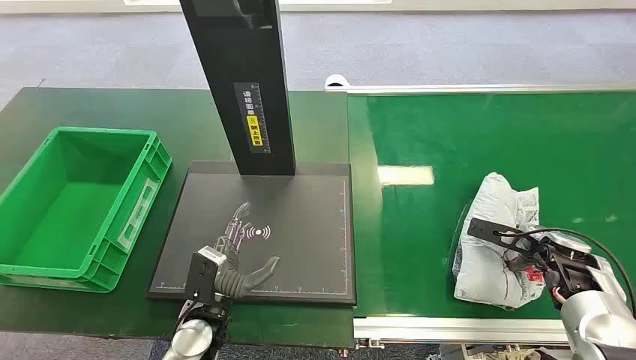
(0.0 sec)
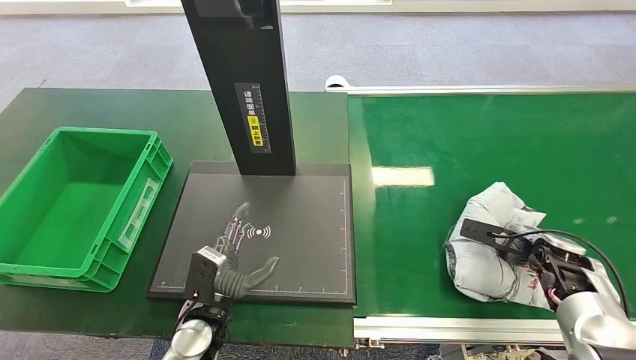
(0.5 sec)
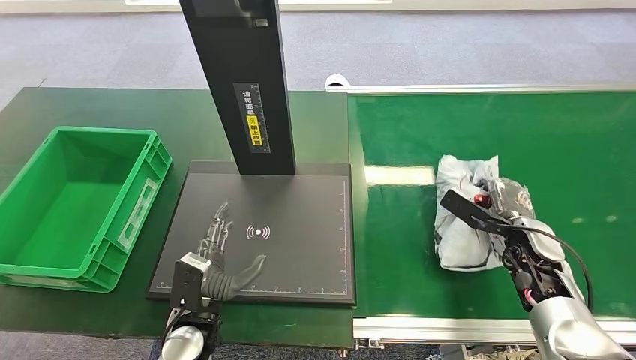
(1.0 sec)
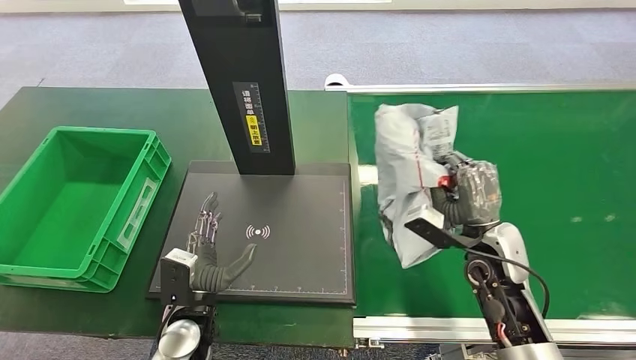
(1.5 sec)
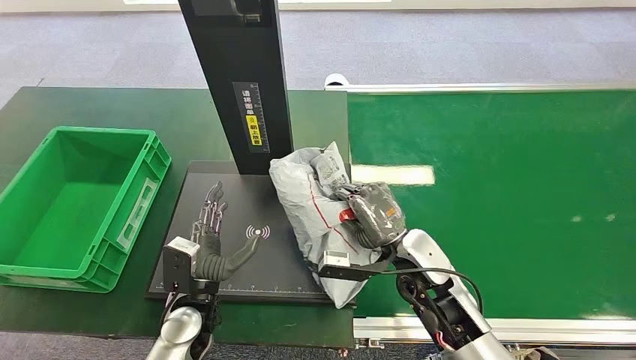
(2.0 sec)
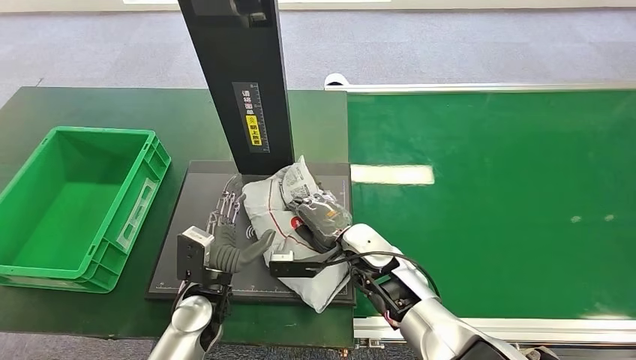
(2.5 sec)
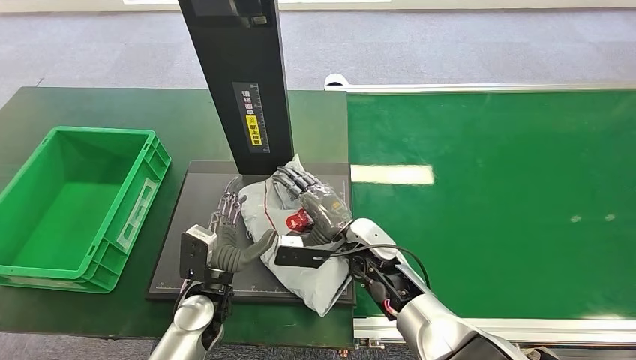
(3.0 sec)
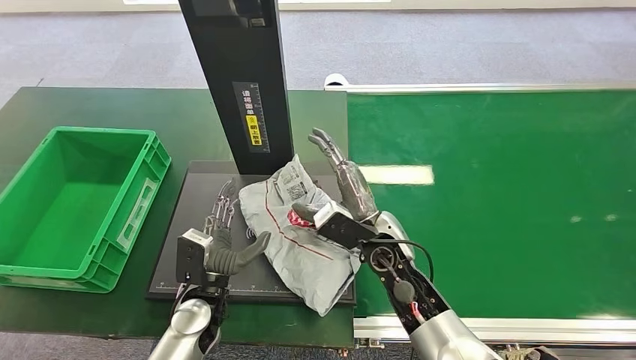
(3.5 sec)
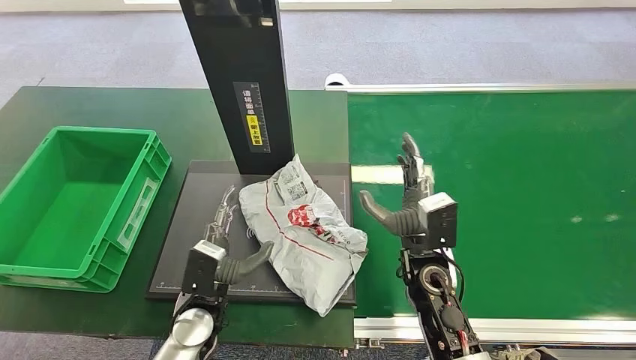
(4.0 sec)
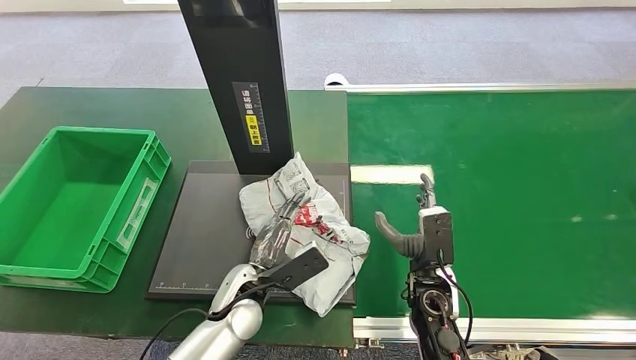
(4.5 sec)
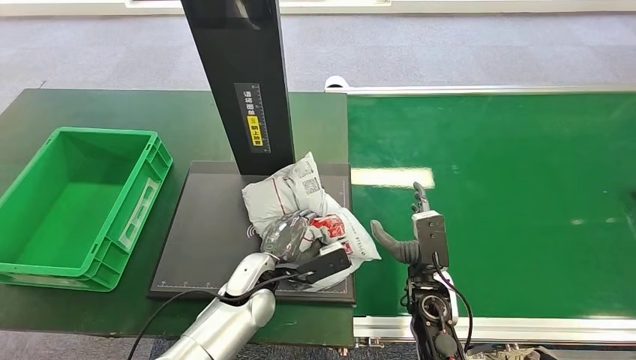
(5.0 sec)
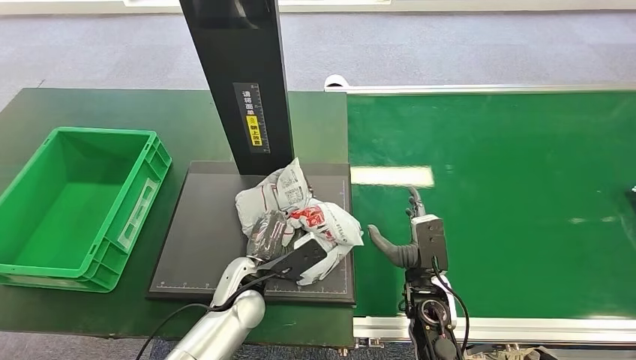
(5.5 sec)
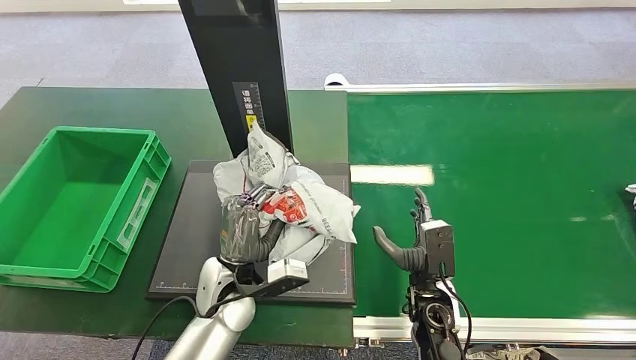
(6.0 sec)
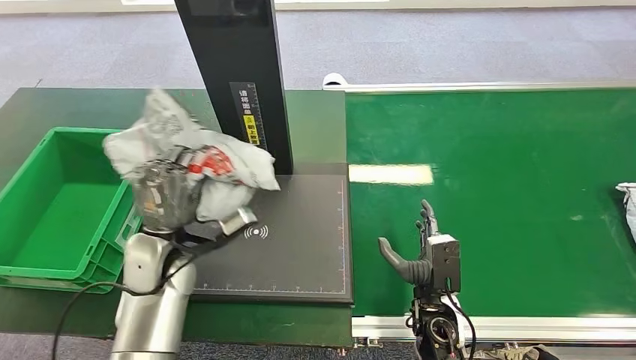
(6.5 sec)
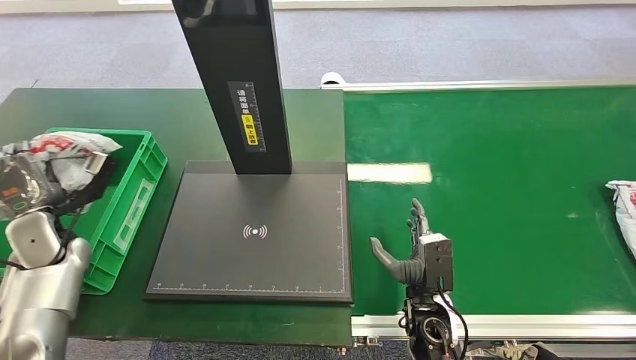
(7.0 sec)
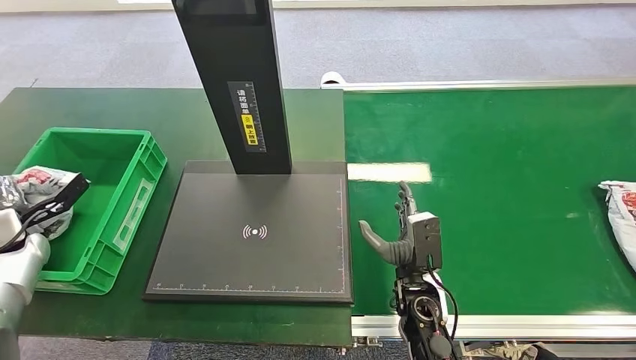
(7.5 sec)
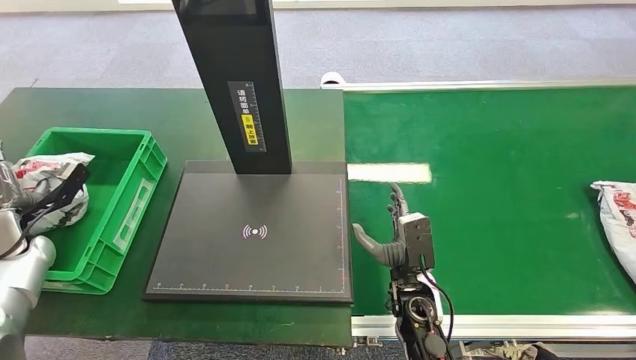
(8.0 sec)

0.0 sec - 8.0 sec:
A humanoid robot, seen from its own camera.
Step, 0.0 sec - 1.0 sec: Pick up the package from the conveyor belt.
Step, 1.5 sec - 3.0 sec: Place the package onto the inbound machine.
Step, 3.5 sec - 6.0 sec: Pick up the package from the inbound machine.
Step, 6.5 sec - 8.0 sec: Place the package into the parcel locker.
2.0 sec - 4.0 sec: The right hand goes to the left and returns, some 10 cm each way.
4.0 sec - 6.0 sec: The left hand shifts by some 10 cm. Meanwhile the right hand is displaced downward by about 5 cm.
